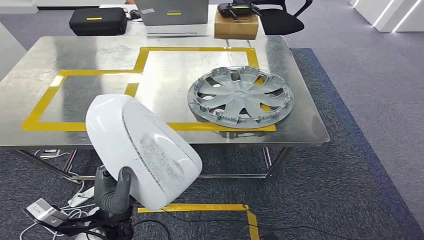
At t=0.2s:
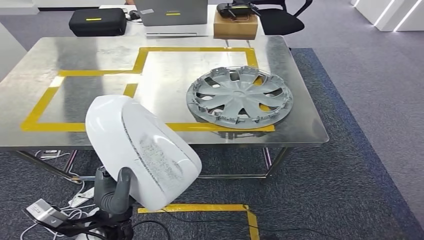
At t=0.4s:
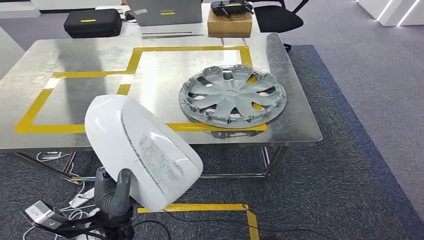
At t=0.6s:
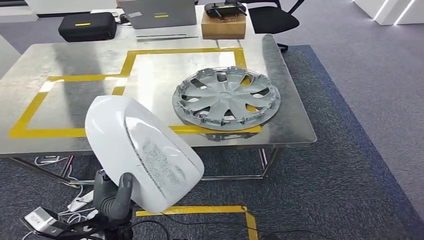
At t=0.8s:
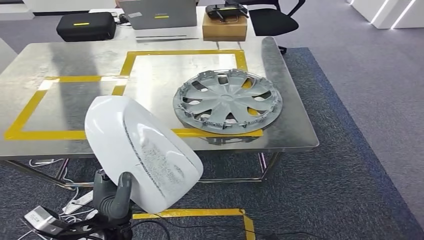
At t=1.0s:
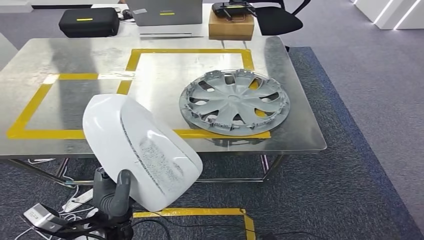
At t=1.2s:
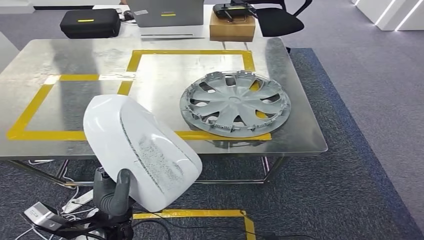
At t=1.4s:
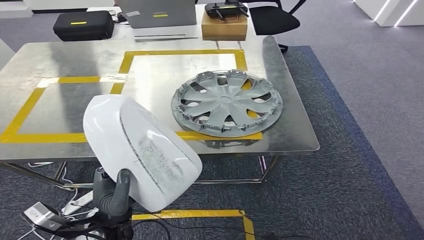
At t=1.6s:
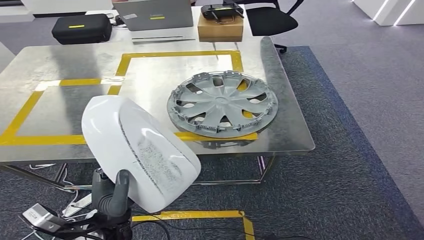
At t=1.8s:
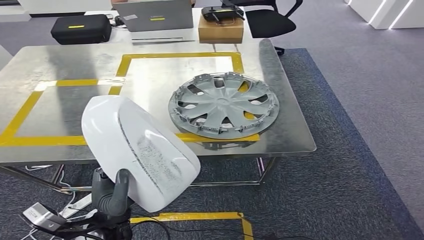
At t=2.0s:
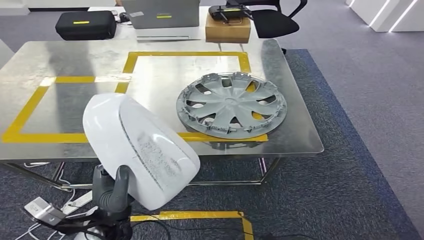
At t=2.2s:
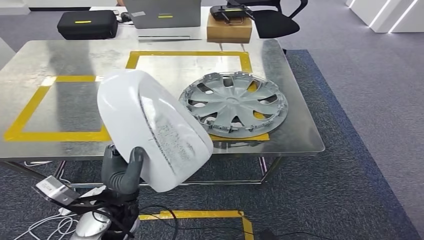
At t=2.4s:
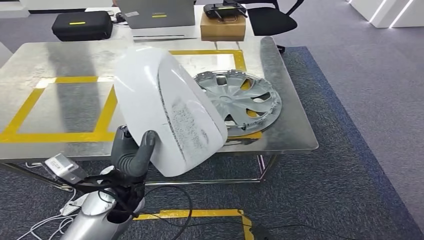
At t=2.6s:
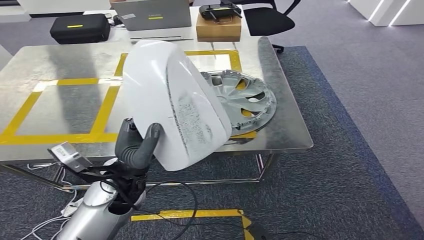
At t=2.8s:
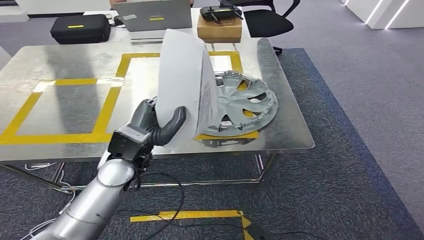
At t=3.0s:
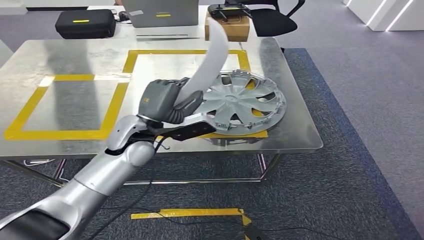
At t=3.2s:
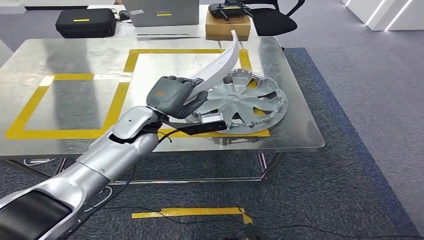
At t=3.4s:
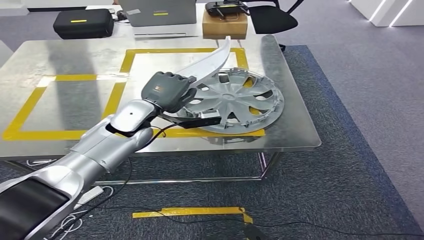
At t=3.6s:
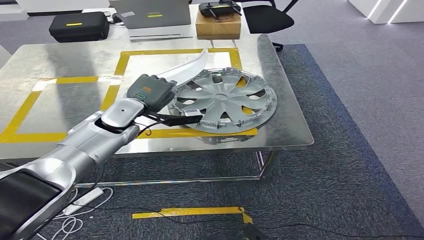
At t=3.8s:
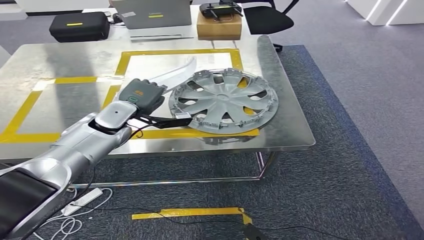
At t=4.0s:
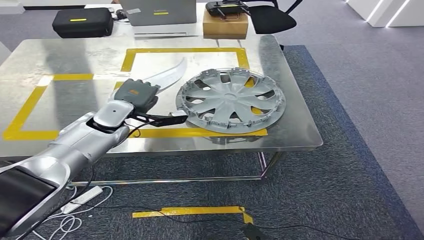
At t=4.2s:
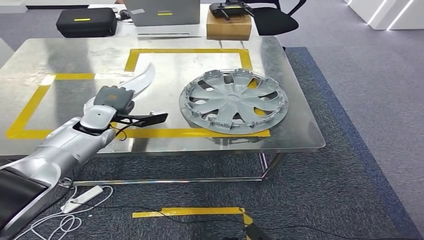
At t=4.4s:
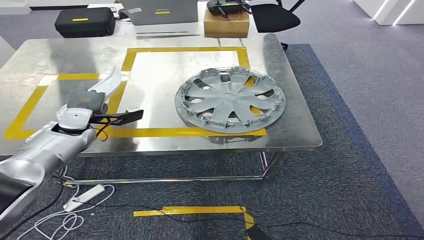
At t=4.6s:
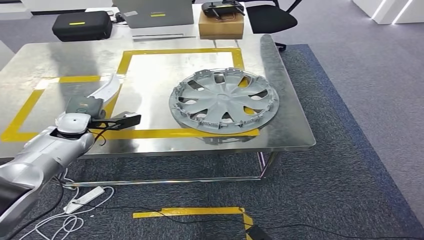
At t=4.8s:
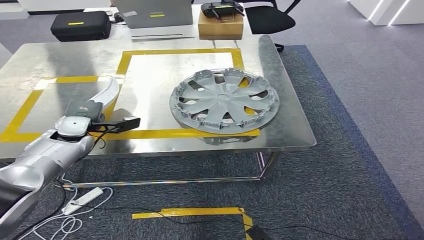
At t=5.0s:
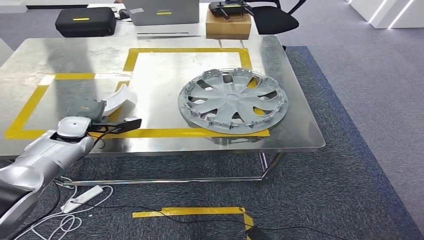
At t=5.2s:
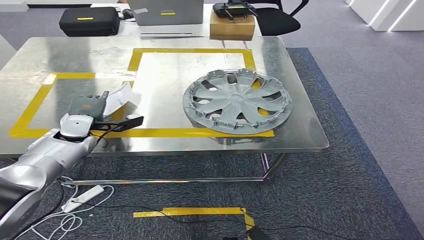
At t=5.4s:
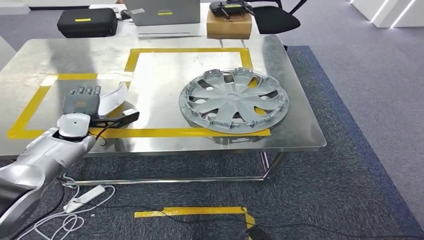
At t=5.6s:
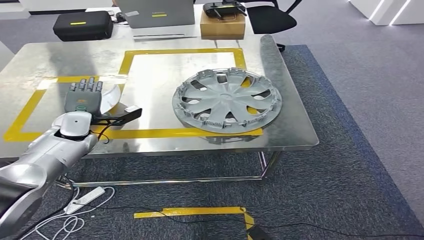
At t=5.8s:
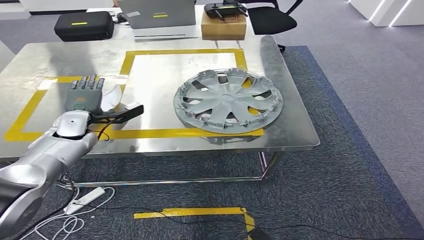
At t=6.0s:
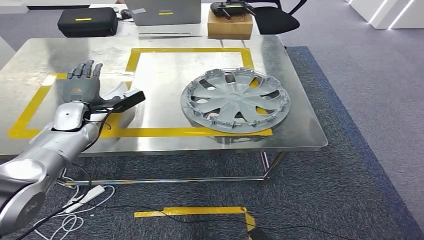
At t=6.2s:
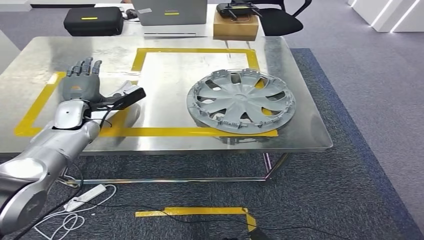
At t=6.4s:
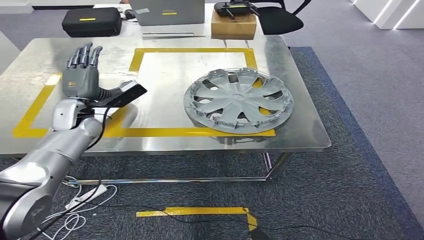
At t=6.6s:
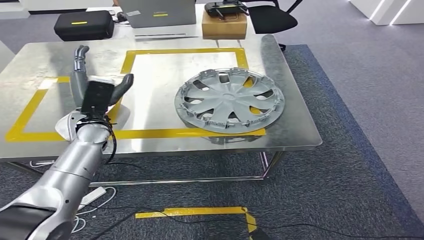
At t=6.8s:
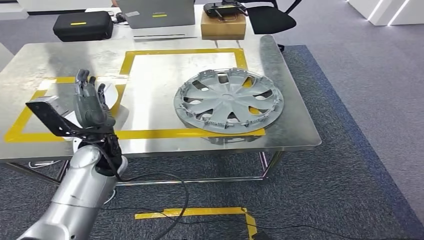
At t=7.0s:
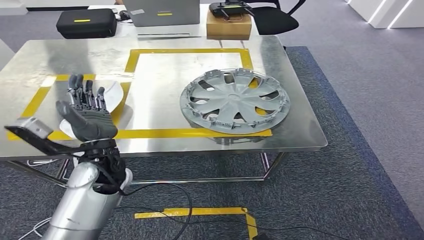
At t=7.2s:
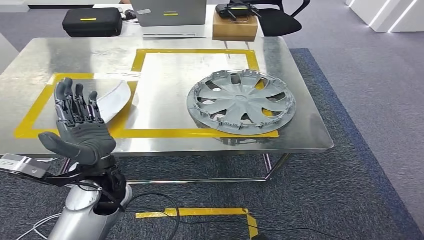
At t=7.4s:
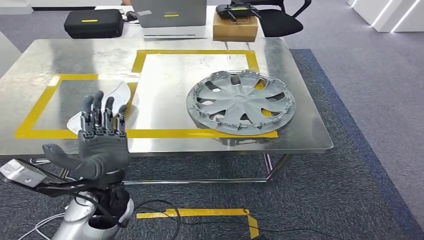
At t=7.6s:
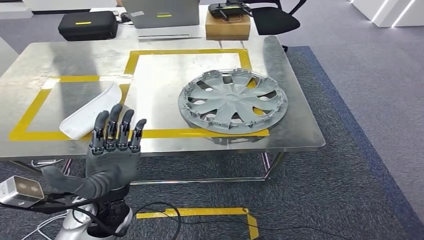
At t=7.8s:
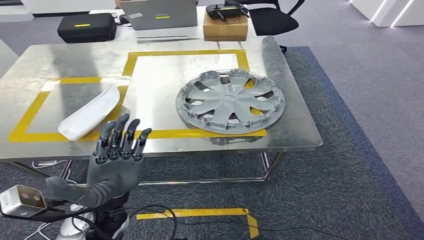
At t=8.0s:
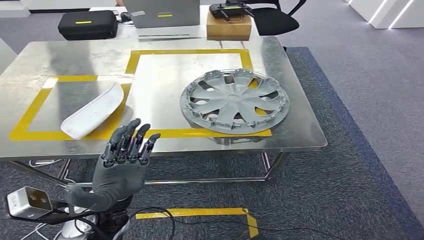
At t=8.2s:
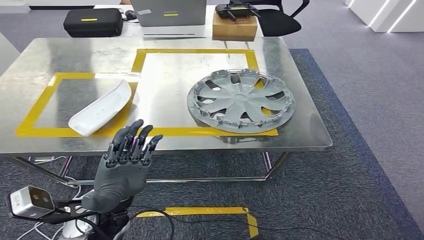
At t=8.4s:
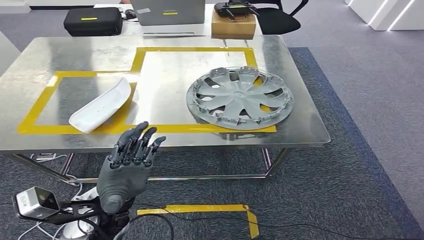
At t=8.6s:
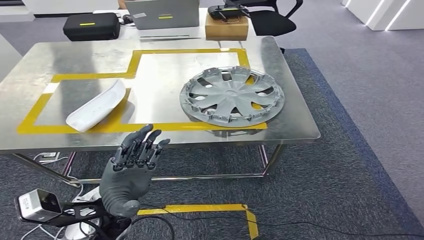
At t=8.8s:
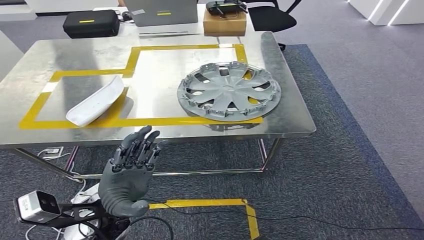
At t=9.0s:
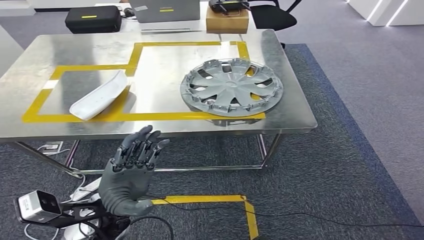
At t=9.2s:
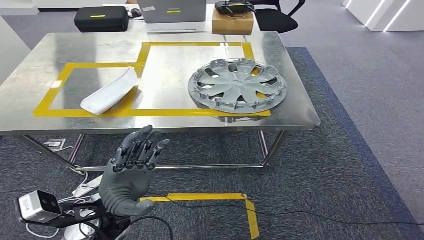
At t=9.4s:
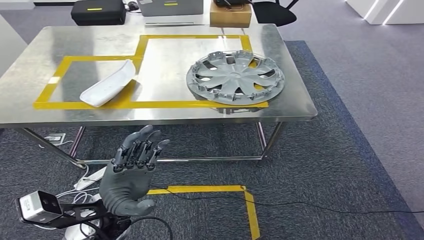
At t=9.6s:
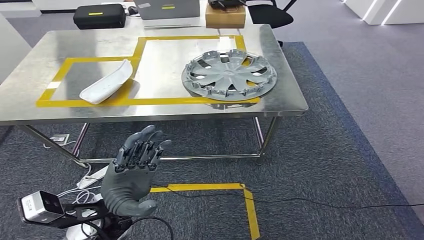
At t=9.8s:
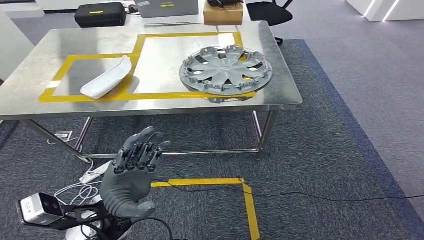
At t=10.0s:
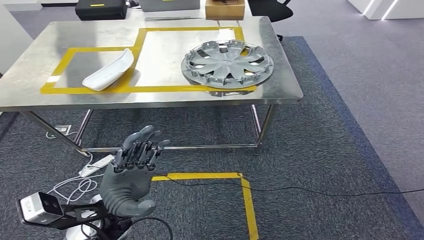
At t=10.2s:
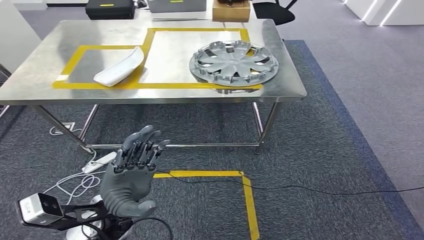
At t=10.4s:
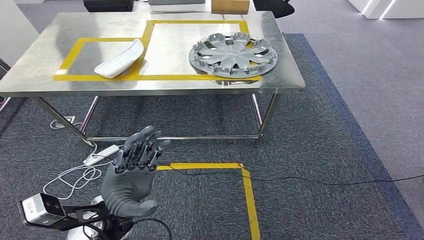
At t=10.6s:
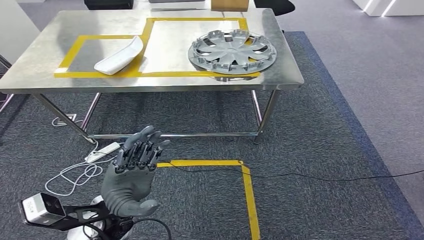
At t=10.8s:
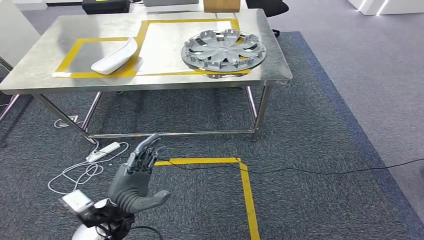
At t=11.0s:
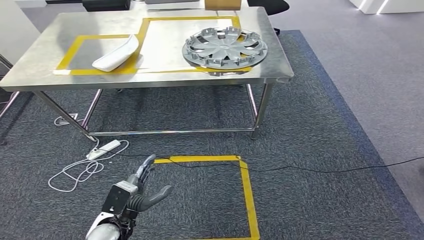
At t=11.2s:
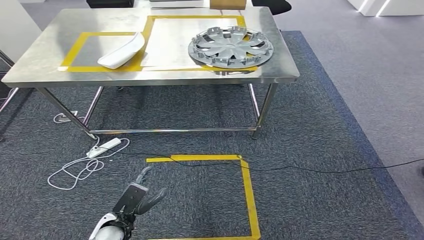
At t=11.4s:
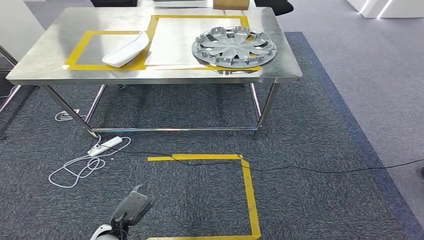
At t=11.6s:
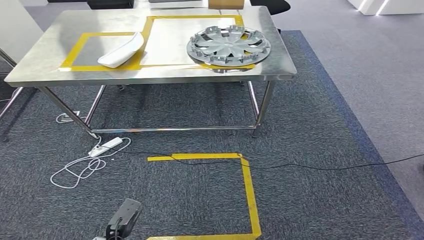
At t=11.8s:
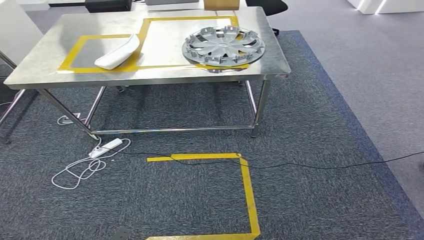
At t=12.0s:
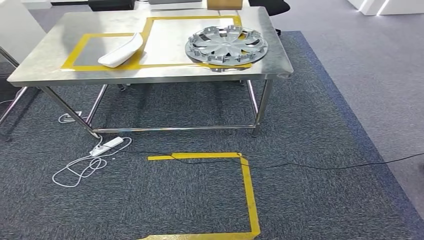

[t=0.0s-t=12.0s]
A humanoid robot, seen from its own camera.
Step, t=0.0s to t=11.0s: Insert the small component into the corresponding slot on the workbench.

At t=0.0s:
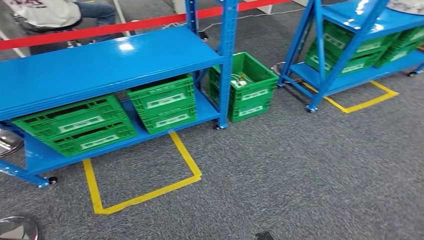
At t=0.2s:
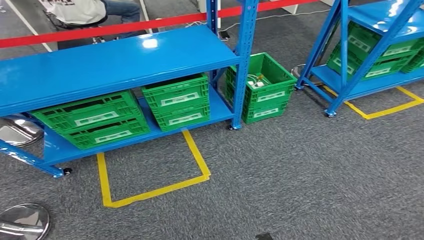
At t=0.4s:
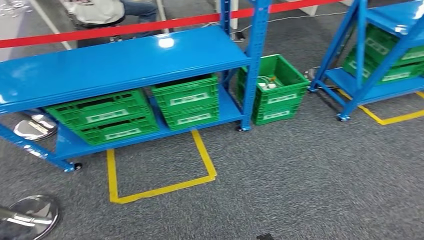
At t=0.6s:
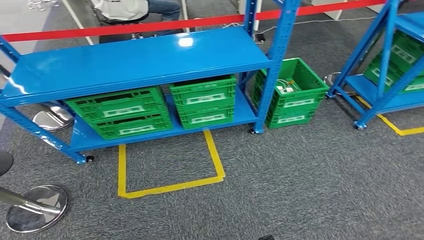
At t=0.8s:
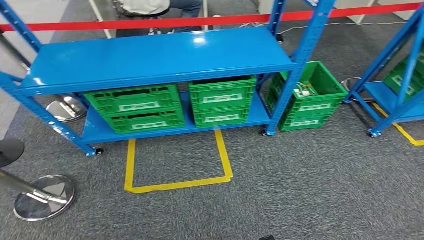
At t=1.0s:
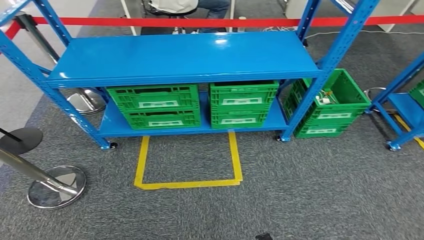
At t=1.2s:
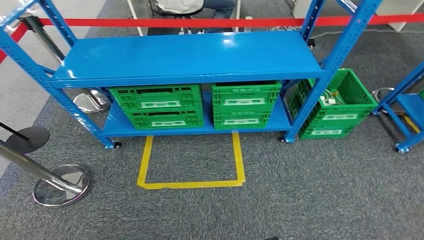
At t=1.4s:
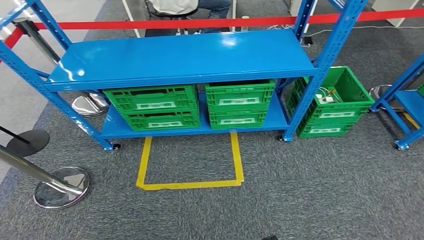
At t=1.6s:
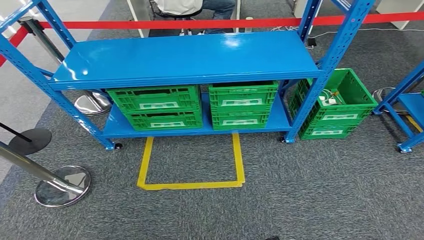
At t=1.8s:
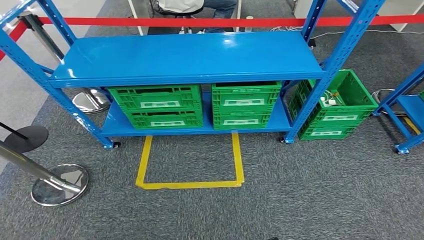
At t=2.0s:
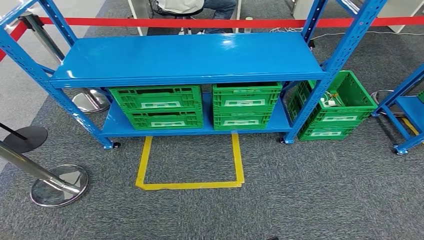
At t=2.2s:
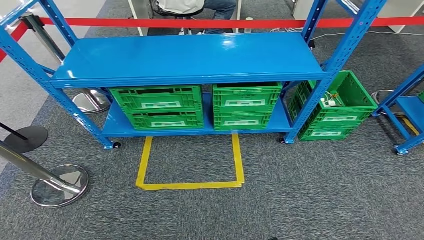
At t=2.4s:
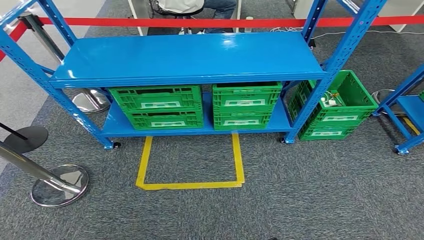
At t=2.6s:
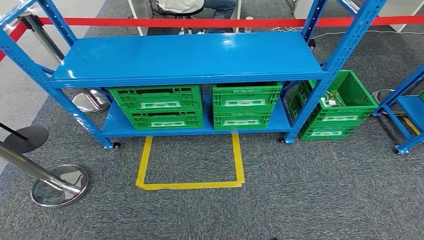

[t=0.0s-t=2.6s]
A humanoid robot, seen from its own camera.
Step, t=0.0s to t=2.6s: Return to the initial position at the workbench.
t=1.2s to t=2.6s: The hands move only a little.

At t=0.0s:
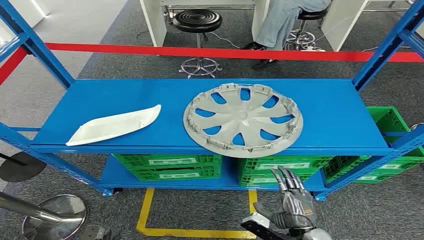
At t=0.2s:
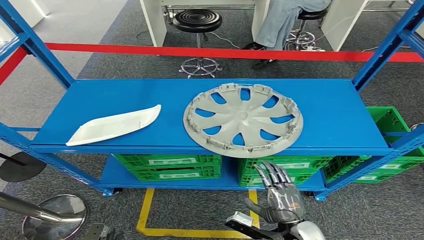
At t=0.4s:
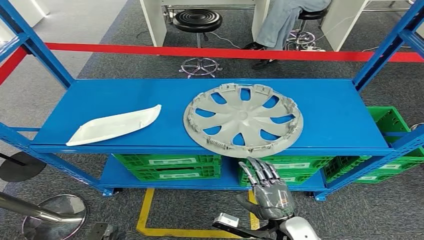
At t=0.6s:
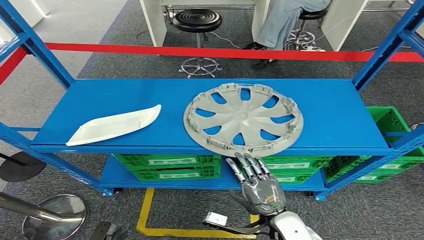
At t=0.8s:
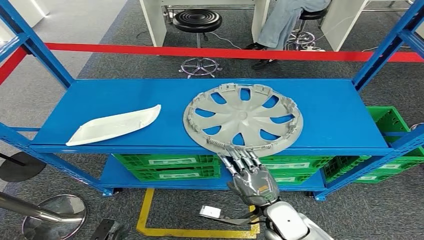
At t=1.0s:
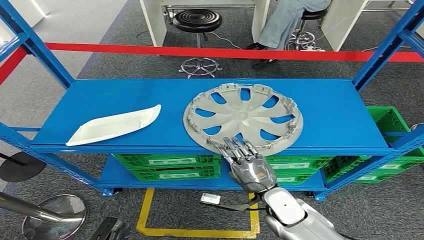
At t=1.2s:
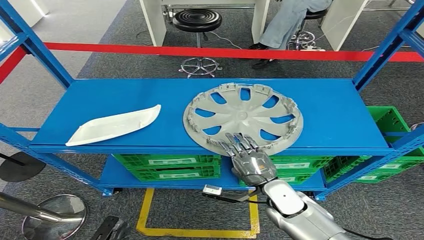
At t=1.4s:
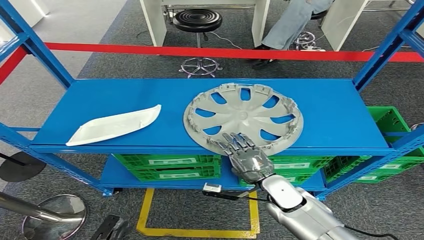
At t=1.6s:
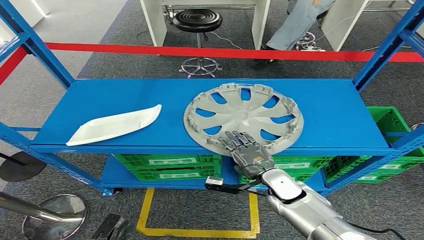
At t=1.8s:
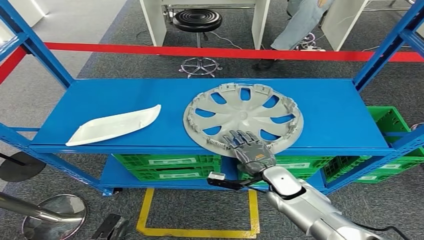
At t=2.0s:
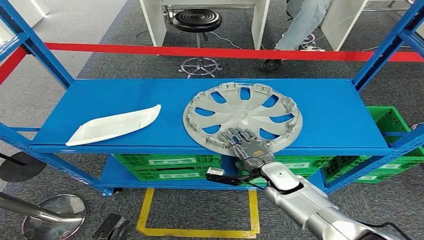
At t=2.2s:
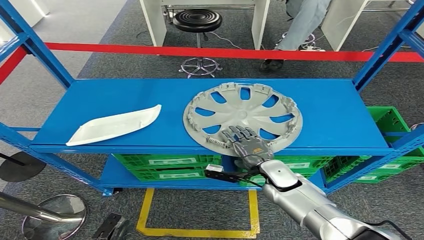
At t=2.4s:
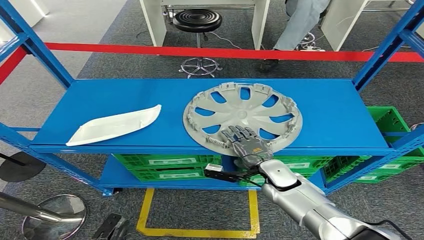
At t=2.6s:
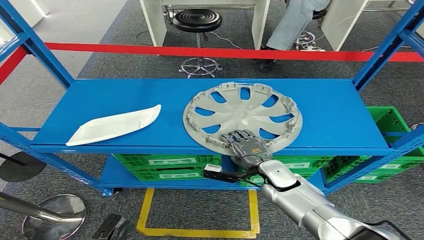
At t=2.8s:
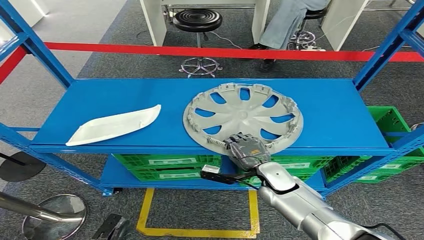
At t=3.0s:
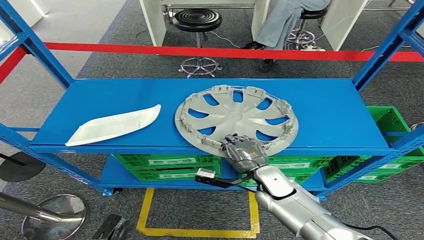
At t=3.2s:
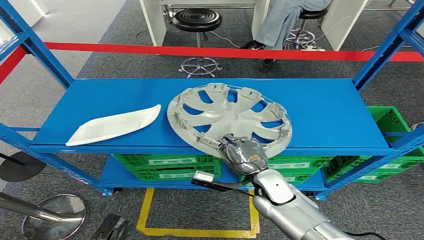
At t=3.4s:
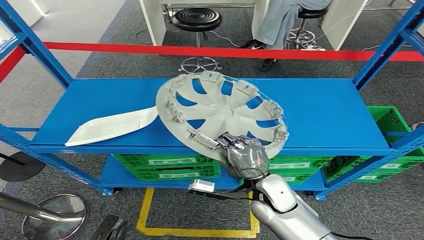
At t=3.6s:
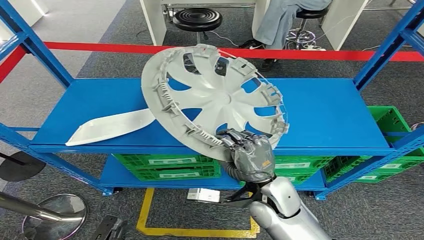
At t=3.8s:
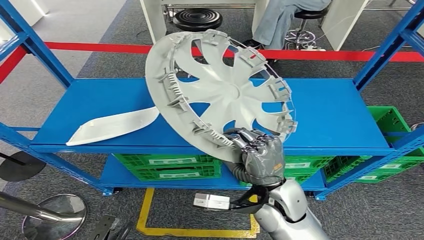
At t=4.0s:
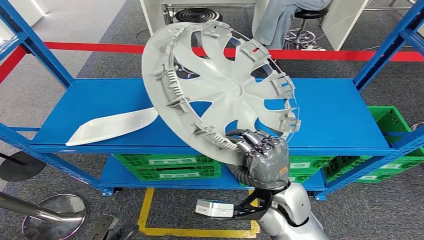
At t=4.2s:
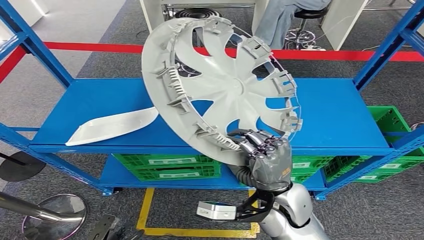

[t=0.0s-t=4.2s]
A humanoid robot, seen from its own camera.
t=1.4s to t=2.8s: There are only small adjustments of the hands.
